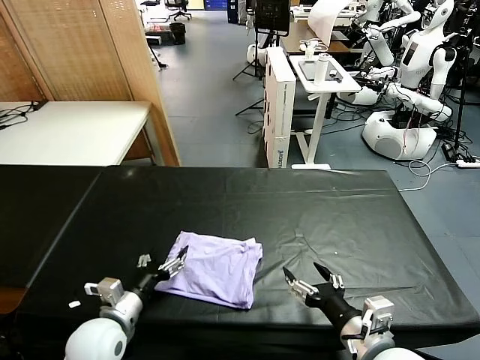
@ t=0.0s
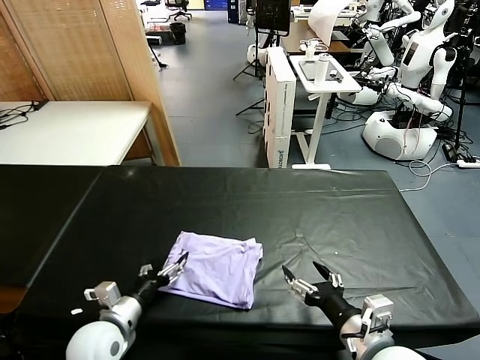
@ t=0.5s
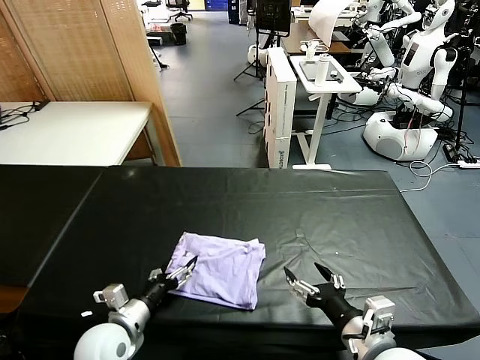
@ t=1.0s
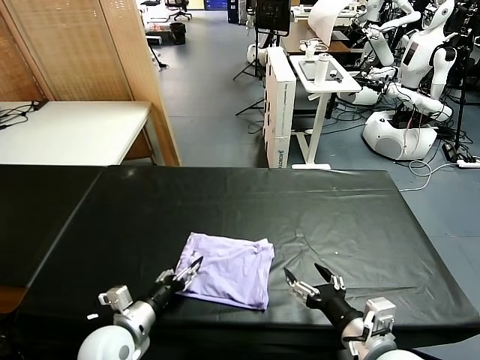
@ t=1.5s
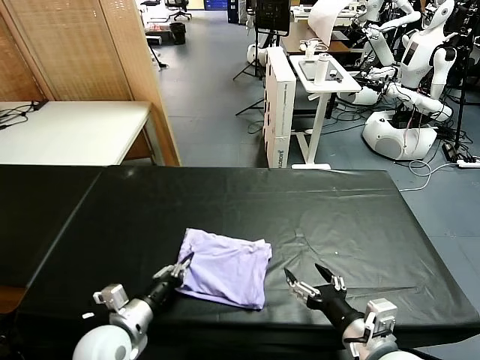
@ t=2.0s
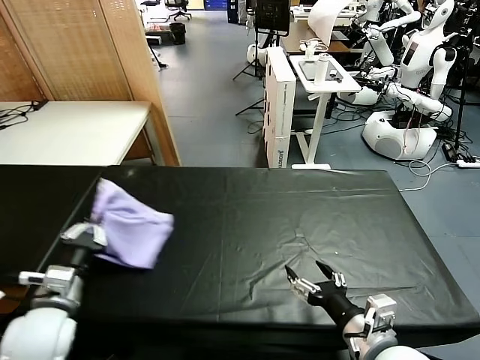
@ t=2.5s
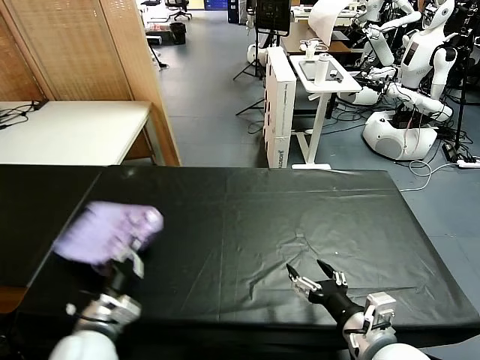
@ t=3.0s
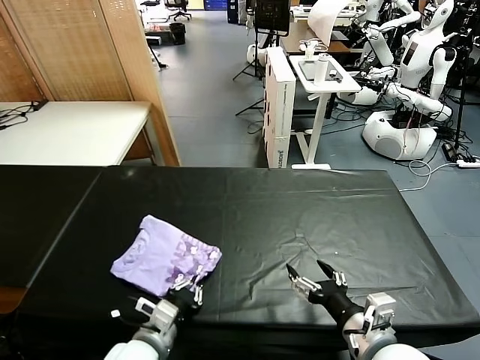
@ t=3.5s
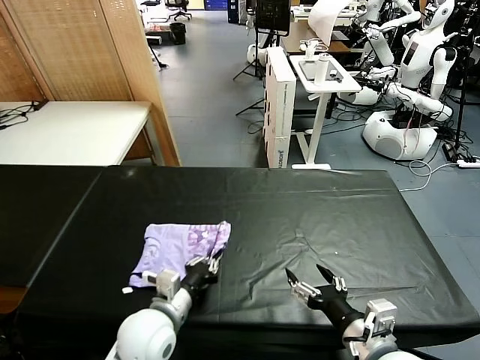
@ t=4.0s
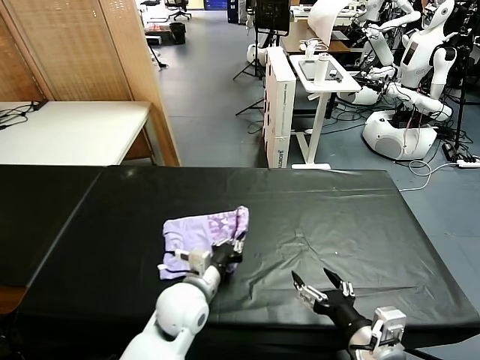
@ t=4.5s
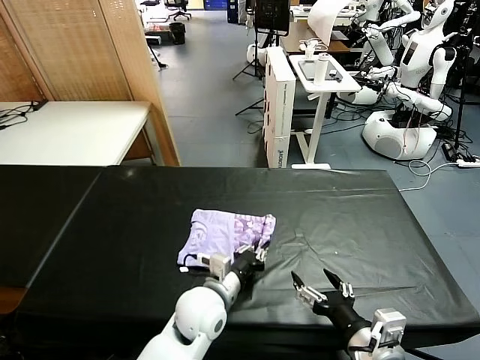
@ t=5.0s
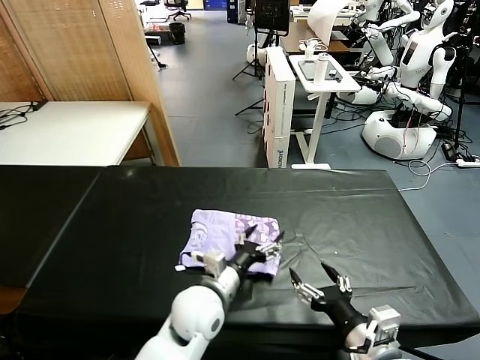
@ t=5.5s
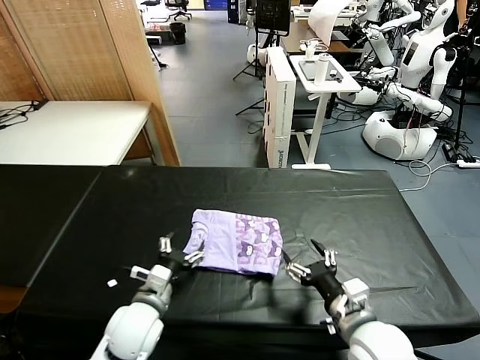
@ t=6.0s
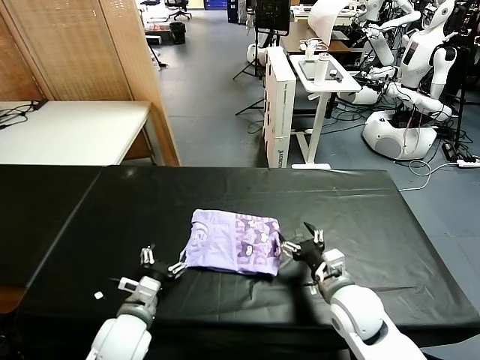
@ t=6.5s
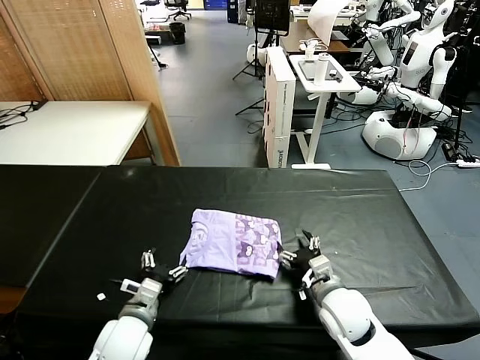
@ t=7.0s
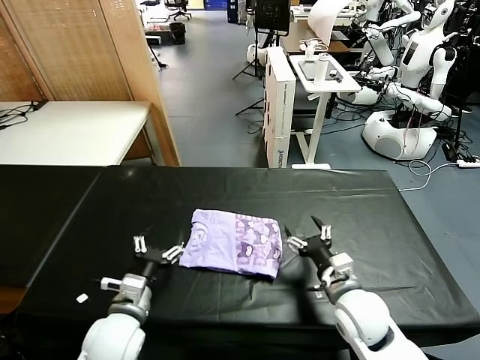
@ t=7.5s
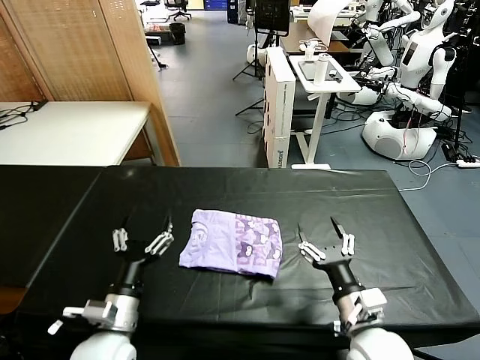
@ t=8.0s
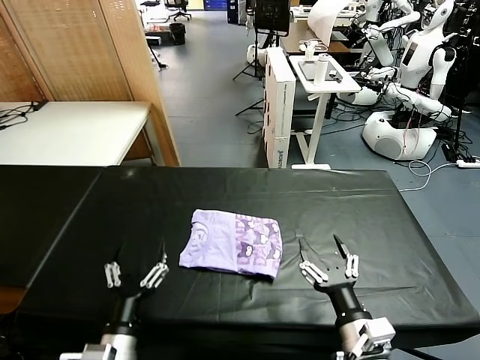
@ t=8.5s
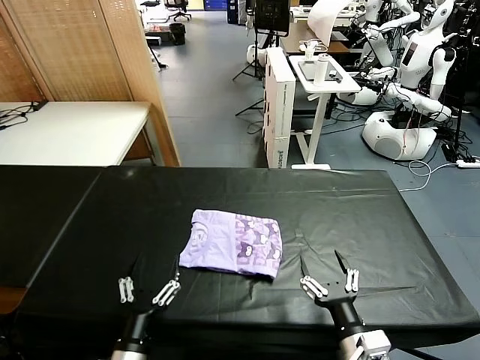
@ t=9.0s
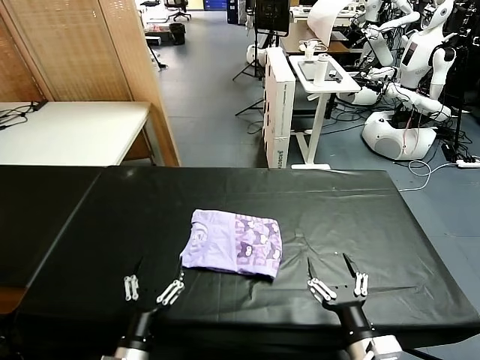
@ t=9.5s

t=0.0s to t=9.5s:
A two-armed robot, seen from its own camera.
Task of the whole recording: fold and organize the clothes.
Step, t=0.0s to t=5.5s: Flip the folded clothes over with left gripper.
Step, t=6.0s to t=7.5s: Drag the clothes to the center of the table.
t=0.0s to t=2.0s: The left gripper closes its fingers.
t=2.0s to t=4.0s: The left gripper moves to the right, approximately 10 cm.
t=4.0s to t=5.5s: The left gripper travels to the right and forward by approximately 10 cm, and opens up.
t=5.5s to t=7.5s: The right gripper heads forward and downward, covering about 15 cm. The left gripper heads to the left, covering roughly 15 cm.
t=7.5s to t=9.5s: The grippers both shift backward by approximately 15 cm.
